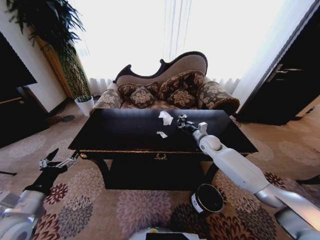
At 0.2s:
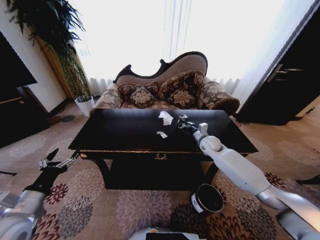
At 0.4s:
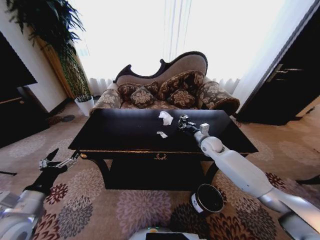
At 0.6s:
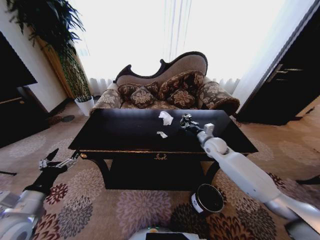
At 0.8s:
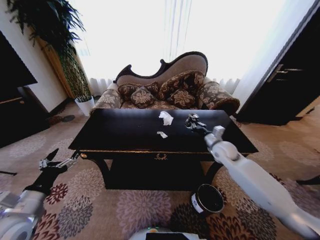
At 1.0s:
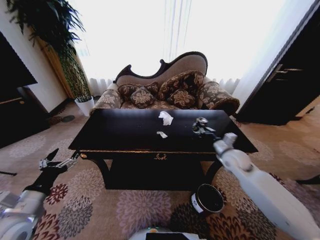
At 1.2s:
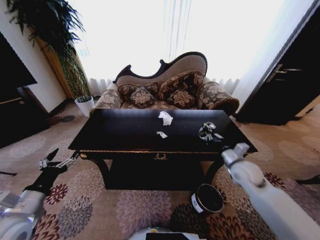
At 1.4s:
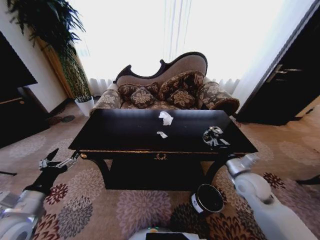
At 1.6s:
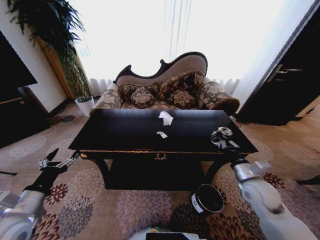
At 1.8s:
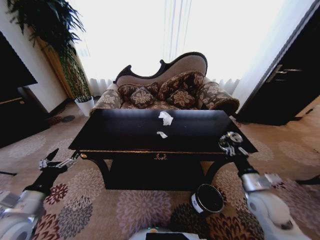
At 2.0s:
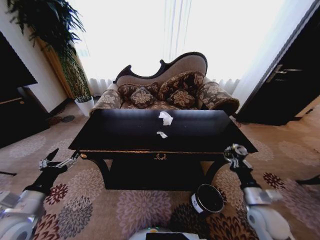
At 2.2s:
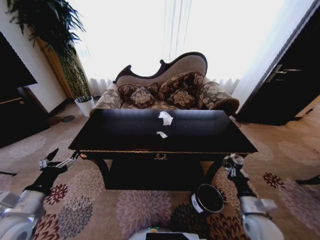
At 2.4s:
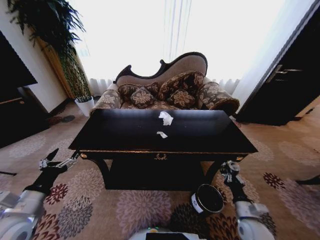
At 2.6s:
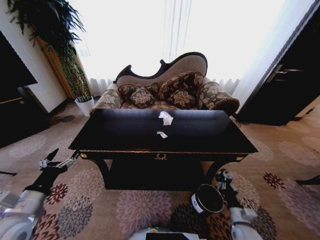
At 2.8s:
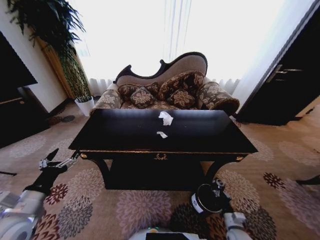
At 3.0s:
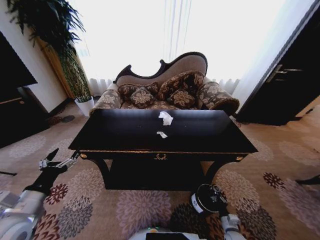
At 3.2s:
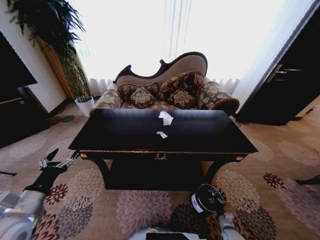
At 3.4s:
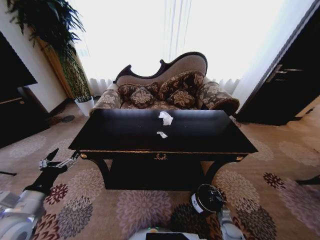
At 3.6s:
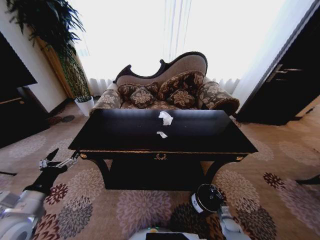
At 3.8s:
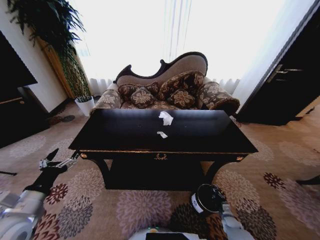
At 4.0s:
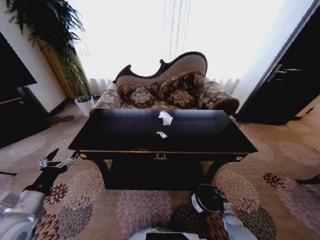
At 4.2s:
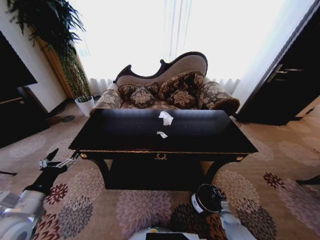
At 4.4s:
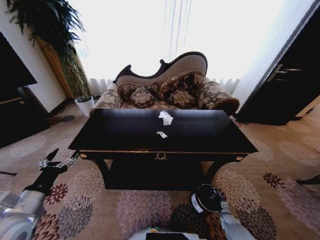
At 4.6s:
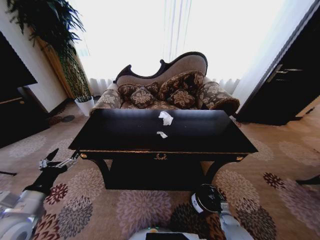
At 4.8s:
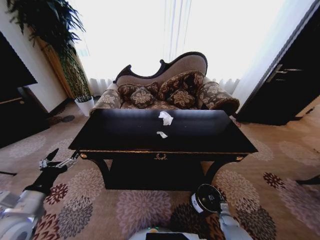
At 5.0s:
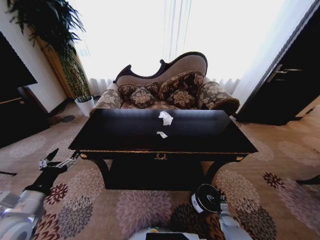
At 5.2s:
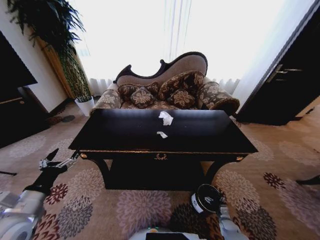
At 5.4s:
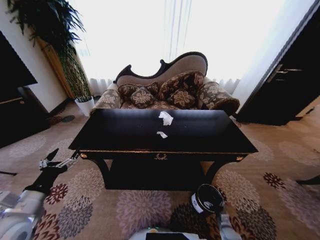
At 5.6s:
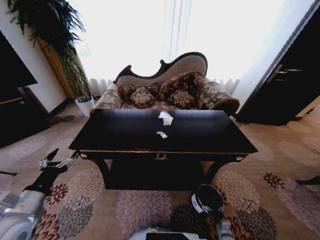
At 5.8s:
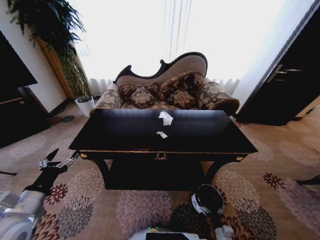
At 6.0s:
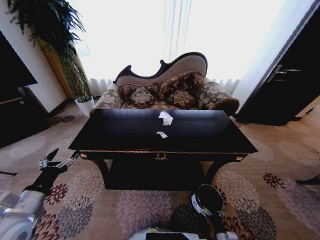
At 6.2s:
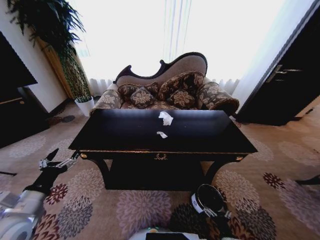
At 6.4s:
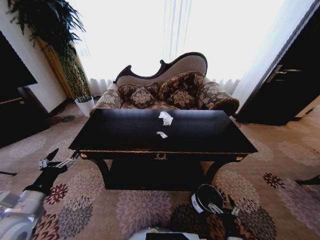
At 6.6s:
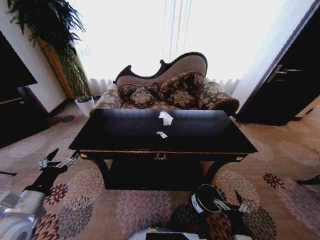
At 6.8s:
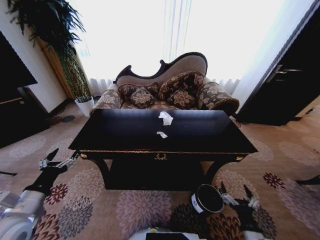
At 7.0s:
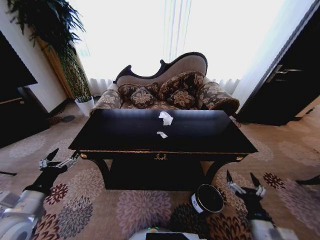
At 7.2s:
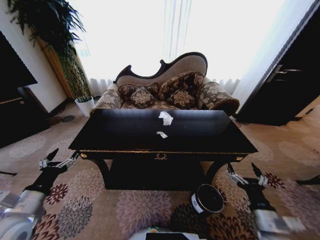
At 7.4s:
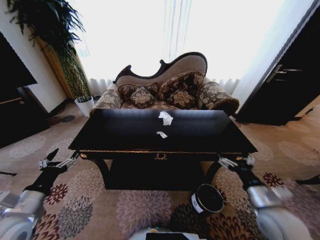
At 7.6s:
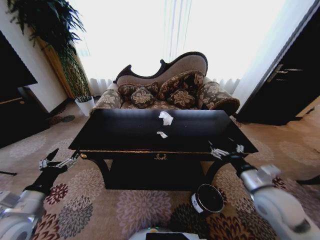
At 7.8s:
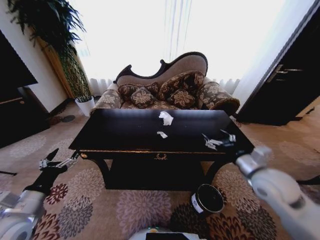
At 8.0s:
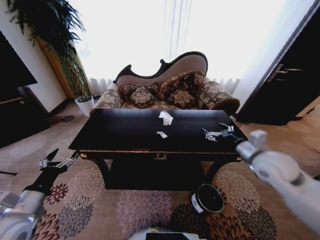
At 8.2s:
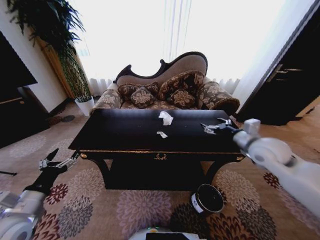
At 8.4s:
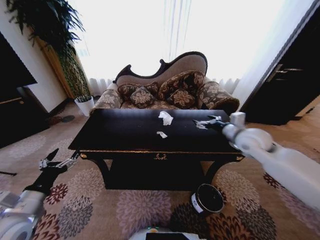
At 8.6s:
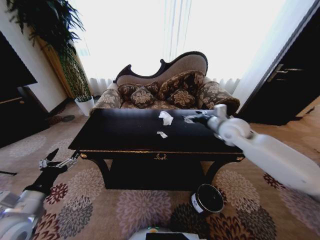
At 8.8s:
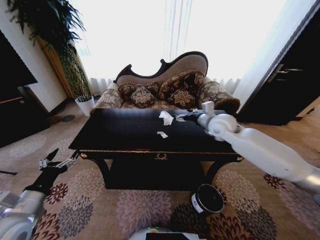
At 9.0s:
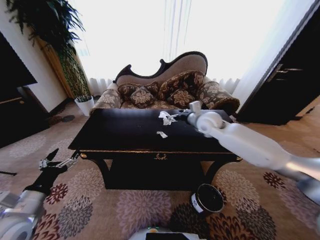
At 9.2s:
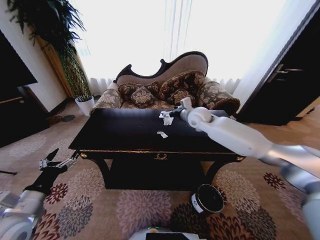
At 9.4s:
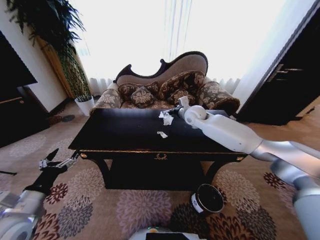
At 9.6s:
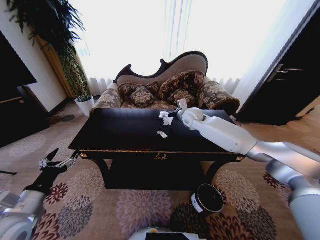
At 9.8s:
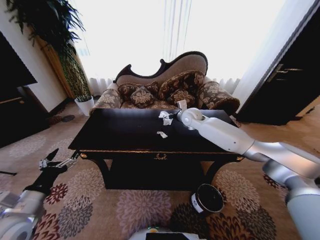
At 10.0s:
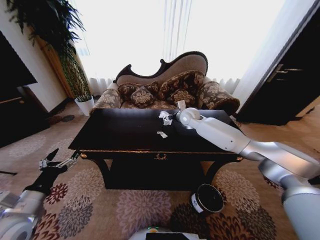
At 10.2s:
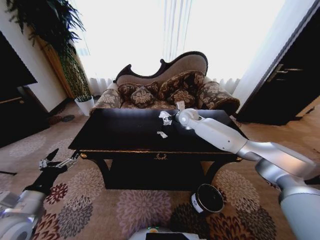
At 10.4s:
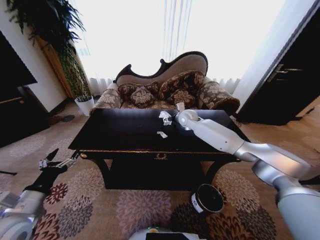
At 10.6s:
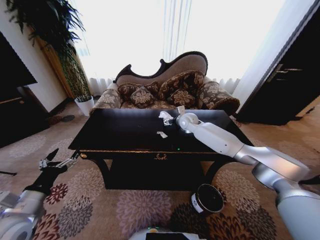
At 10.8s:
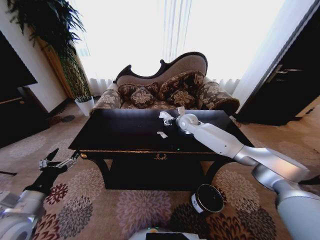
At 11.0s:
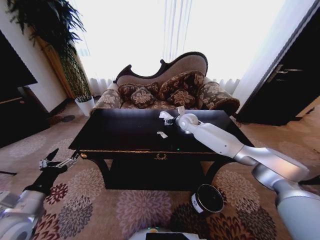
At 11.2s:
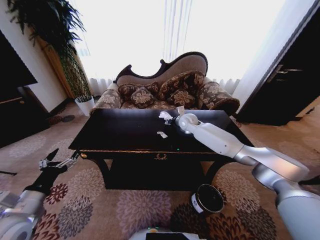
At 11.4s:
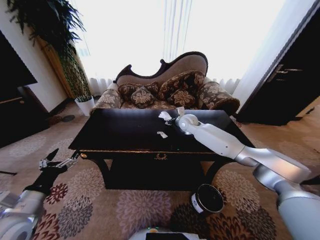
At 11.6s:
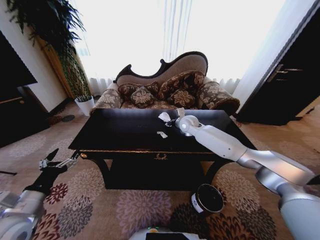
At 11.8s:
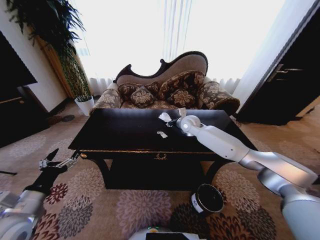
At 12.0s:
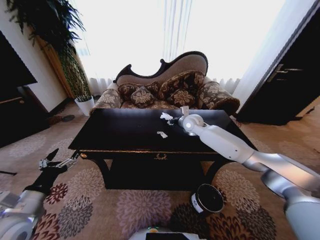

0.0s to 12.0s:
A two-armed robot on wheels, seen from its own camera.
Task of the whole recording: Move to the front of the table and place the trash on the table into the trash bin.
0.0s to 1.6s: The right gripper travels backward by roughly 25 cm.
1.6s to 3.0s: The right gripper travels downward by approximately 30 cm.
3.0s to 4.4s: The right gripper shifts about 15 cm forward, downward and to the right.
4.4s to 6.0s: The right gripper goes approximately 20 cm backward, to the left and upward, and opens.
6.0s to 7.6s: The right gripper moves upward, approximately 35 cm.
7.6s to 9.0s: The right gripper moves forward and to the left, some 30 cm.
9.0s to 10.4s: The right gripper is displaced forward and to the left by roughly 10 cm.
10.4s to 12.0s: The right gripper closes its fingers.

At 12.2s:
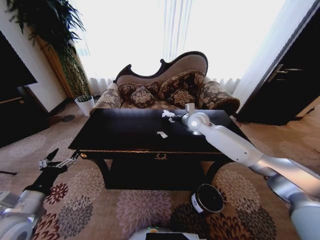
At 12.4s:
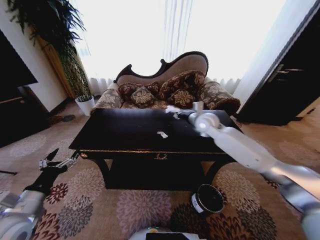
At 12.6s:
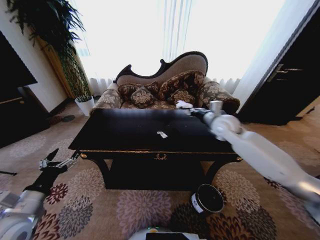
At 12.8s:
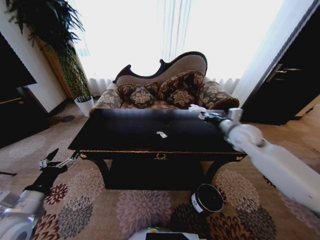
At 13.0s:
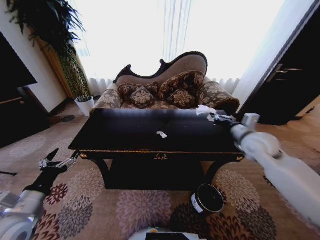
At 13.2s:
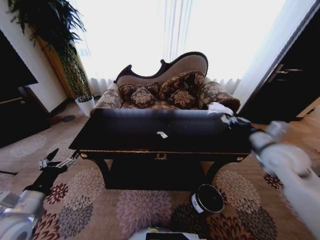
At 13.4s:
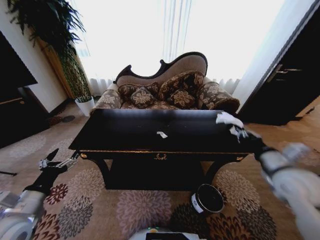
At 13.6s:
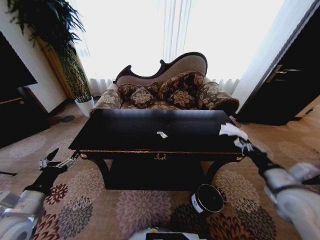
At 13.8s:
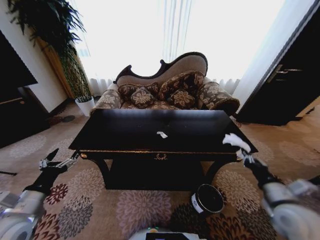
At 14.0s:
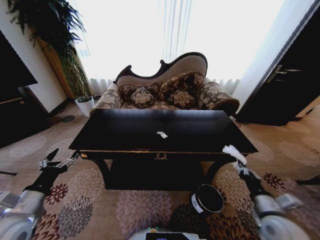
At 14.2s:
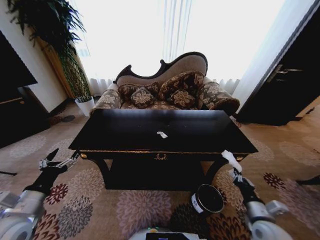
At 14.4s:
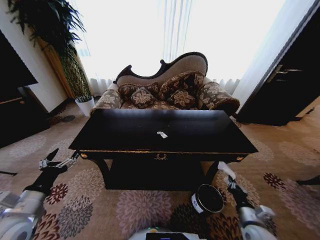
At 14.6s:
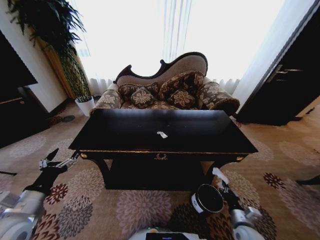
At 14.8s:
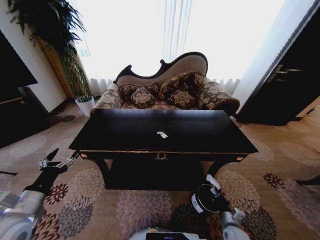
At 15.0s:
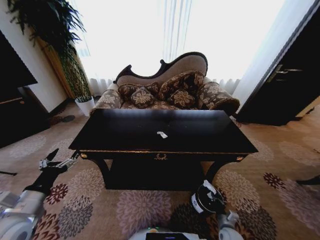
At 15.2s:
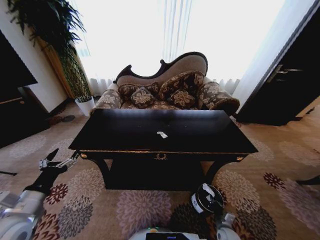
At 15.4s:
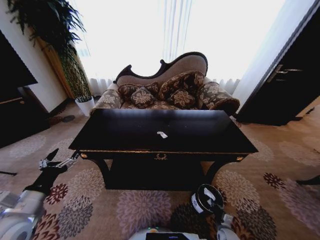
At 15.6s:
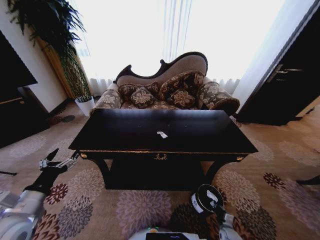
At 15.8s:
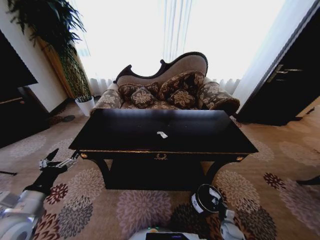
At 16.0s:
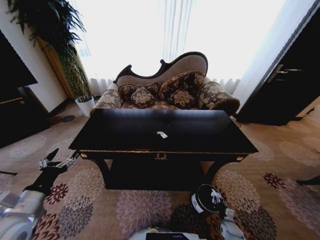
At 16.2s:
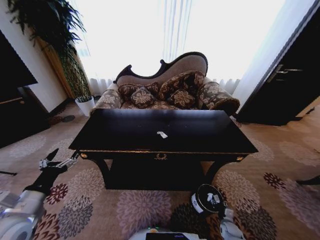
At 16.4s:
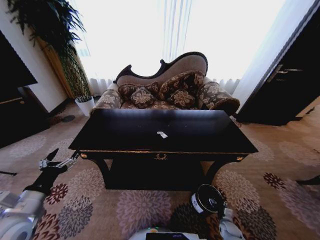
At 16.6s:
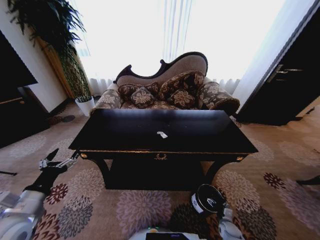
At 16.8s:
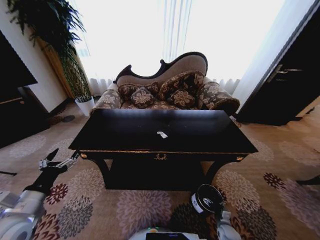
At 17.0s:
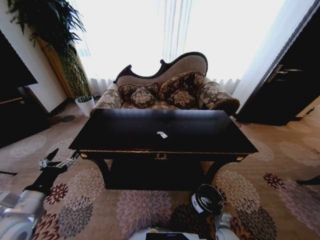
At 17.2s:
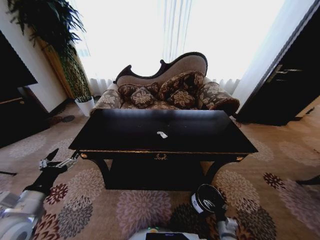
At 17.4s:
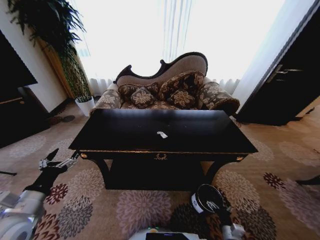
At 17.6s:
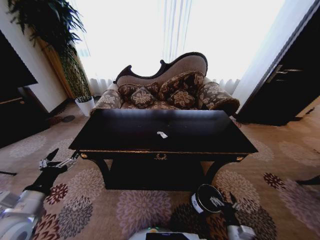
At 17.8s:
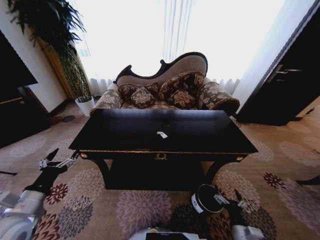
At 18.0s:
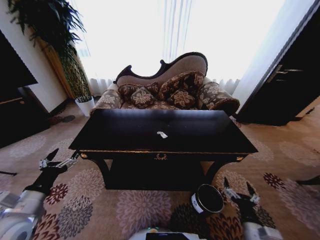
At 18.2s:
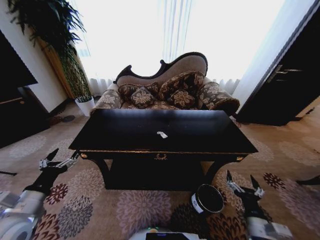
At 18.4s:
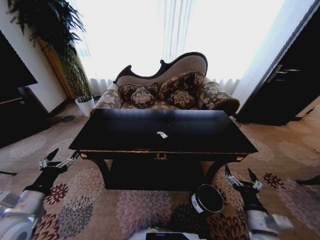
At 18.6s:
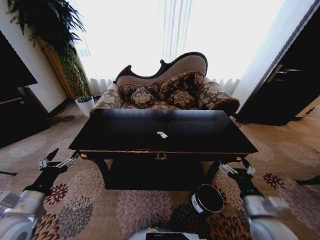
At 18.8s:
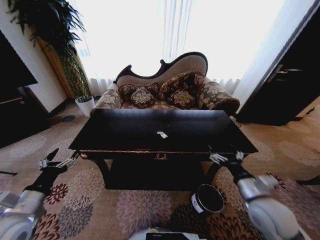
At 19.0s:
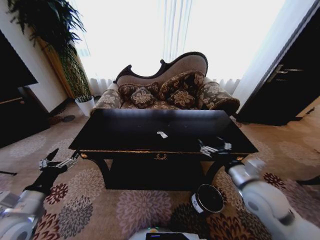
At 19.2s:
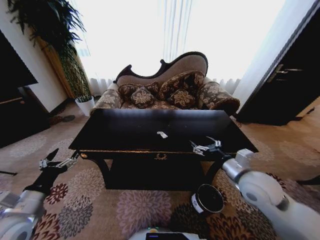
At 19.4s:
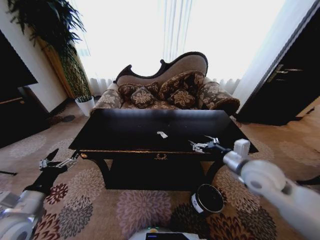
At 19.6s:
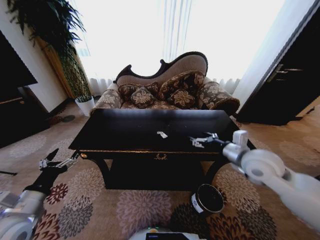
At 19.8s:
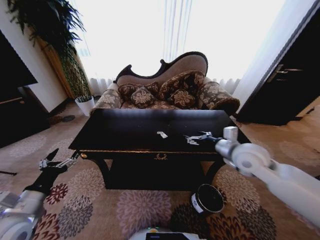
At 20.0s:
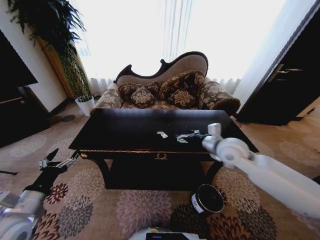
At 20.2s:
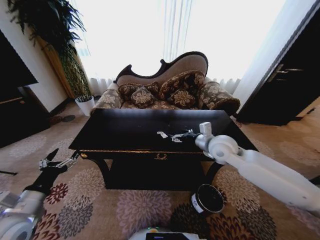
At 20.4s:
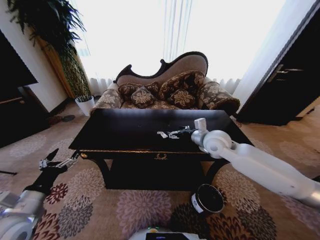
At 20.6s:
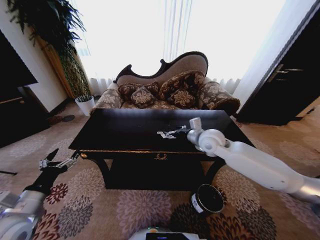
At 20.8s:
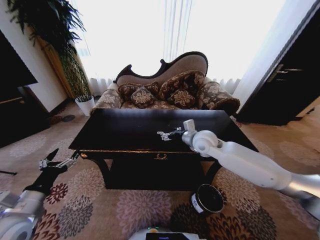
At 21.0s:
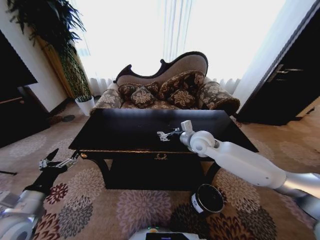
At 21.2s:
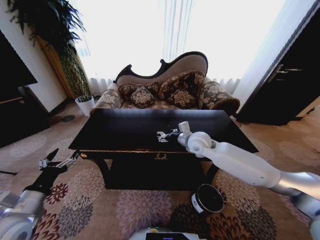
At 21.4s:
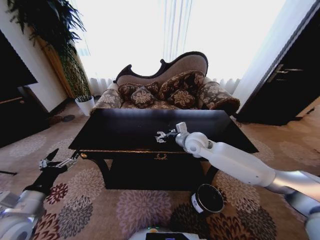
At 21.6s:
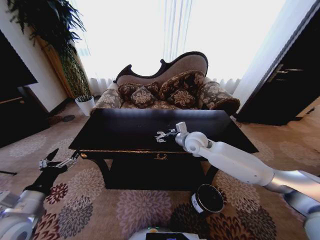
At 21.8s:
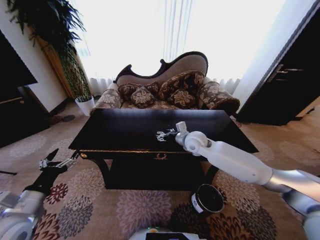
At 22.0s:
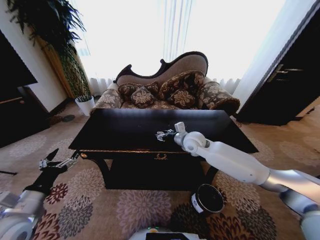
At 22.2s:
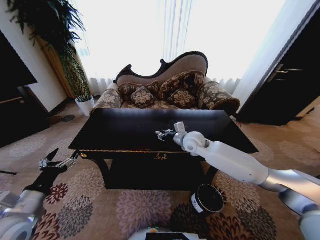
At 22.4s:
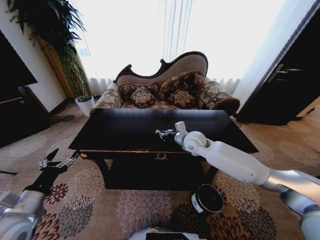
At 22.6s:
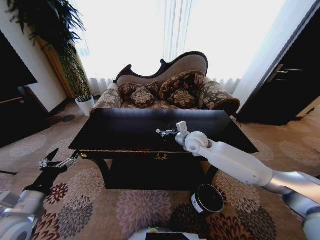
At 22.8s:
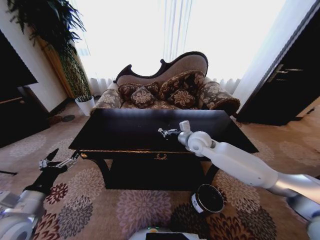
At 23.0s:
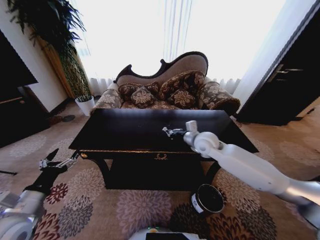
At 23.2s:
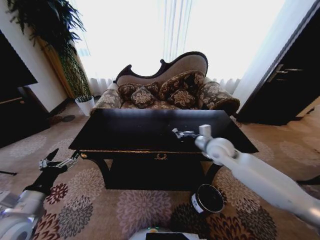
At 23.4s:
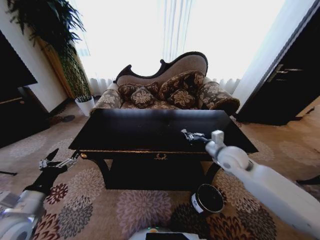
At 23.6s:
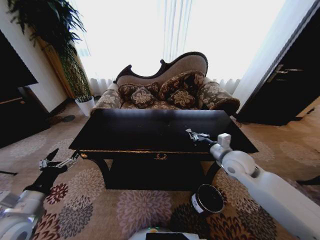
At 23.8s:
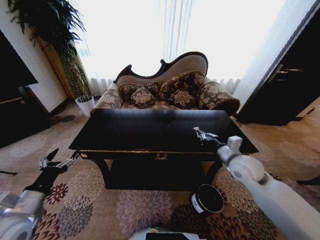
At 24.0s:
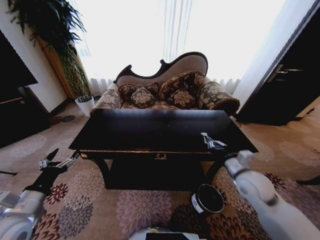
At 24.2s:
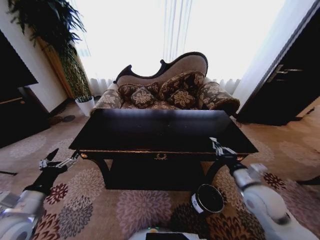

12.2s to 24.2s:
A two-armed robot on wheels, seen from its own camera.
Task of the whole recording: Move to the front of the table and place the trash on the table into the trash bin.
12.2s to 13.8s: The right gripper goes roughly 40 cm backward and to the right.
13.8s to 15.2s: The right gripper shifts roughly 35 cm downward.
15.2s to 16.6s: The right gripper travels downward and to the right by roughly 10 cm, and opens up.
16.6s to 18.2s: The right gripper moves upward, approximately 30 cm.
18.2s to 19.8s: The right gripper moves forward and upward, about 30 cm.
19.8s to 21.2s: The right gripper heads to the left and forward, covering roughly 15 cm.
21.2s to 22.6s: The right gripper closes up.
22.6s to 24.2s: The right gripper goes some 25 cm backward and to the right.
